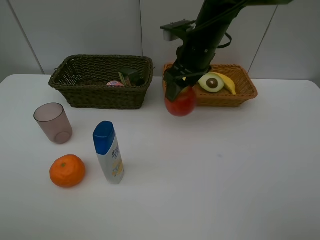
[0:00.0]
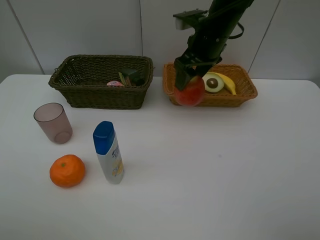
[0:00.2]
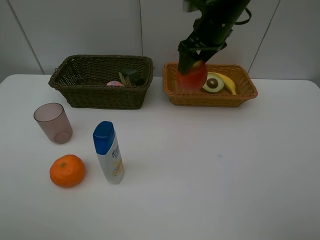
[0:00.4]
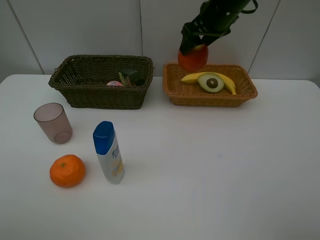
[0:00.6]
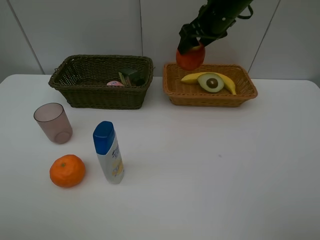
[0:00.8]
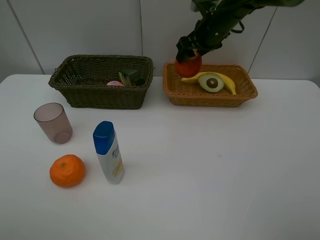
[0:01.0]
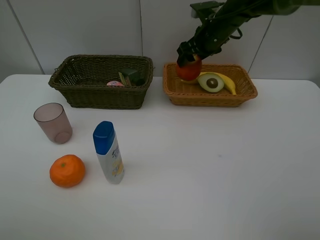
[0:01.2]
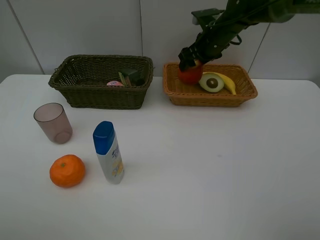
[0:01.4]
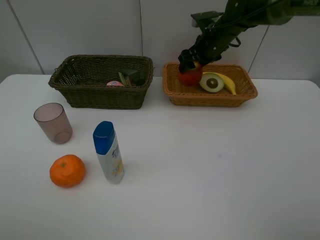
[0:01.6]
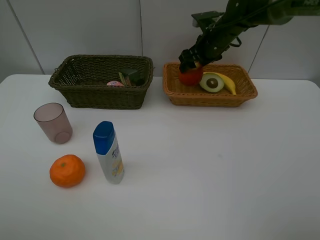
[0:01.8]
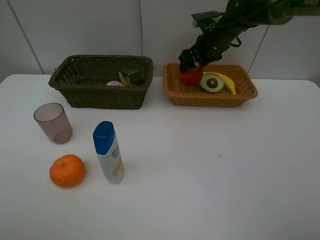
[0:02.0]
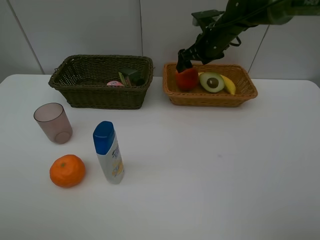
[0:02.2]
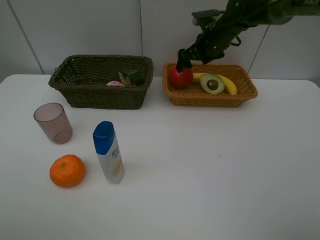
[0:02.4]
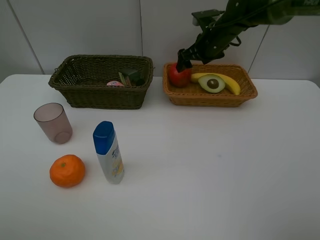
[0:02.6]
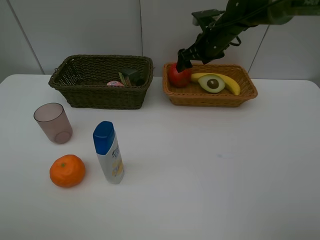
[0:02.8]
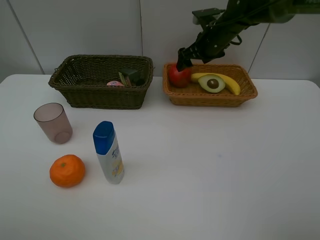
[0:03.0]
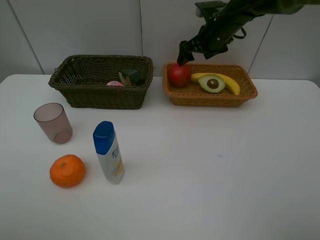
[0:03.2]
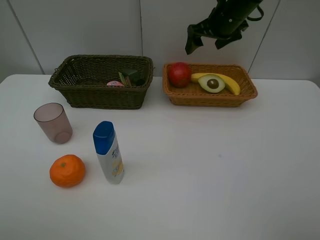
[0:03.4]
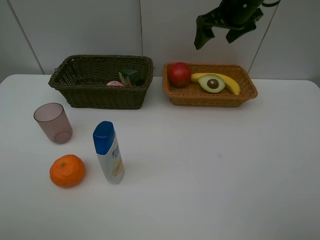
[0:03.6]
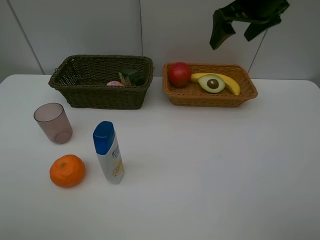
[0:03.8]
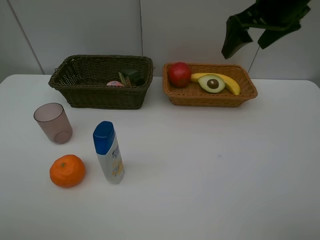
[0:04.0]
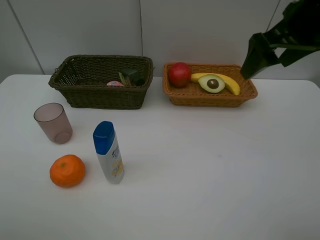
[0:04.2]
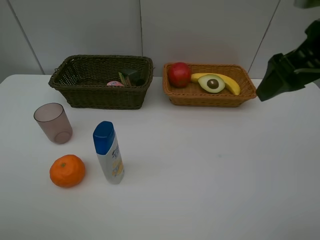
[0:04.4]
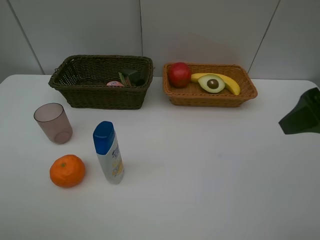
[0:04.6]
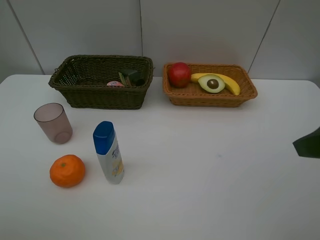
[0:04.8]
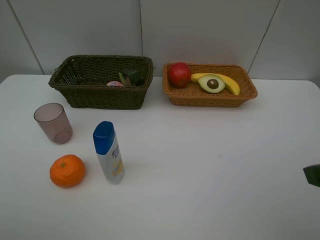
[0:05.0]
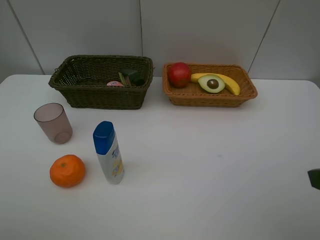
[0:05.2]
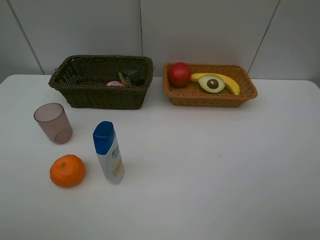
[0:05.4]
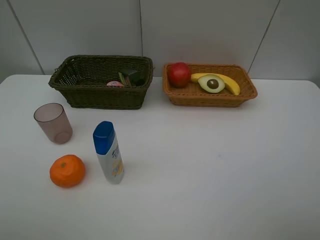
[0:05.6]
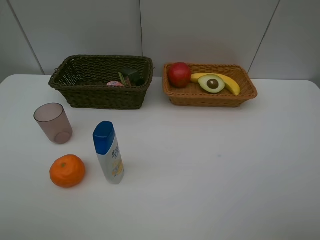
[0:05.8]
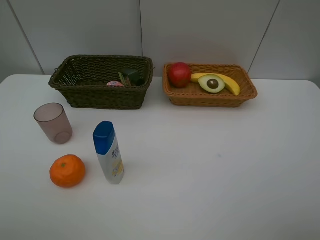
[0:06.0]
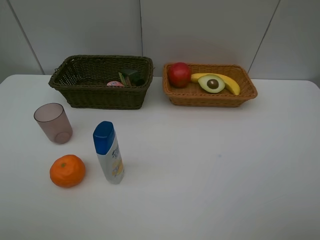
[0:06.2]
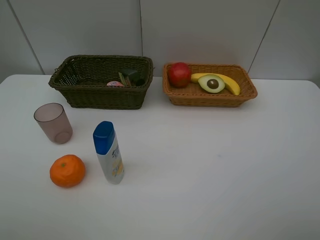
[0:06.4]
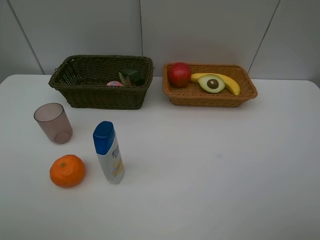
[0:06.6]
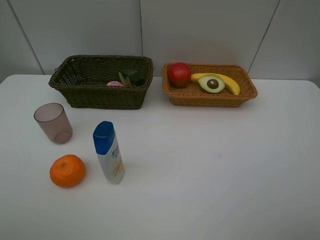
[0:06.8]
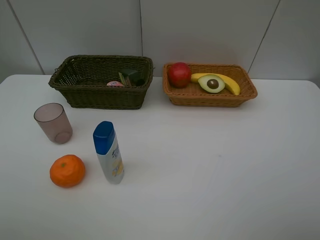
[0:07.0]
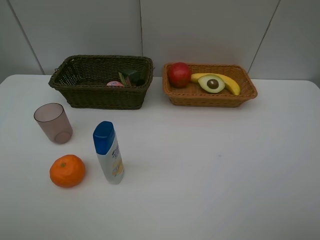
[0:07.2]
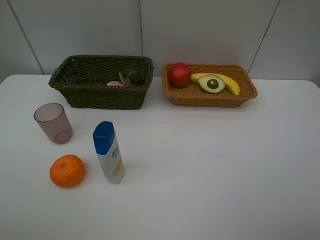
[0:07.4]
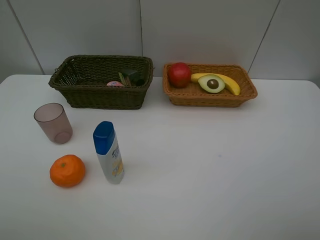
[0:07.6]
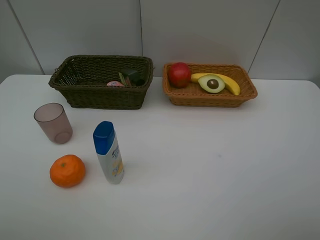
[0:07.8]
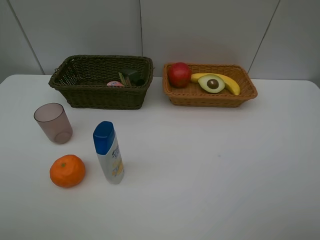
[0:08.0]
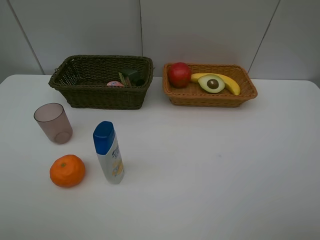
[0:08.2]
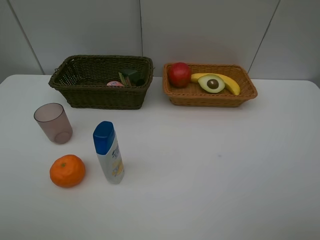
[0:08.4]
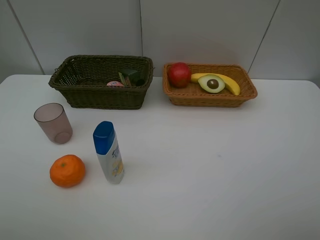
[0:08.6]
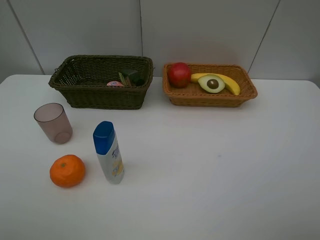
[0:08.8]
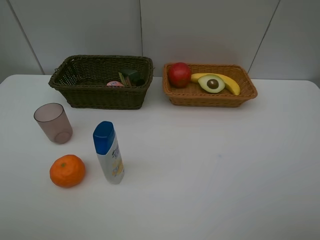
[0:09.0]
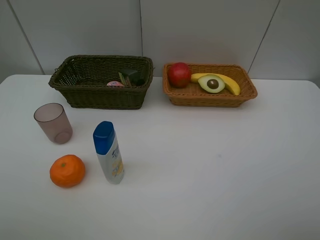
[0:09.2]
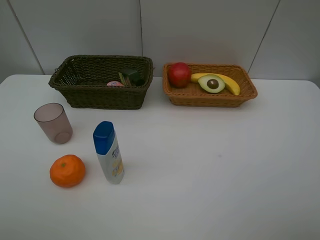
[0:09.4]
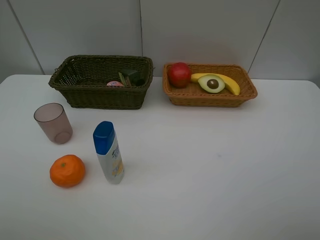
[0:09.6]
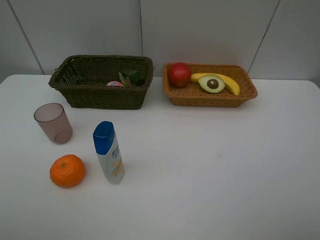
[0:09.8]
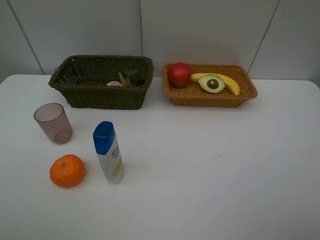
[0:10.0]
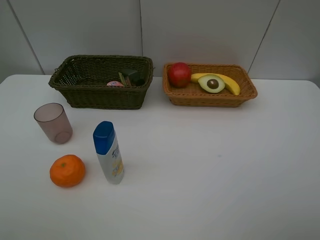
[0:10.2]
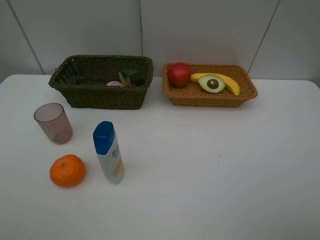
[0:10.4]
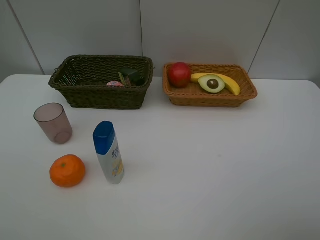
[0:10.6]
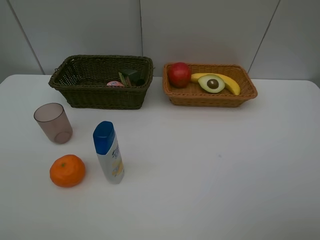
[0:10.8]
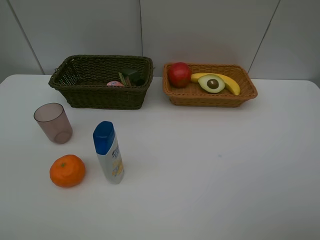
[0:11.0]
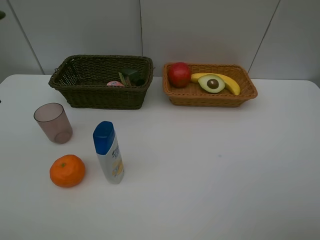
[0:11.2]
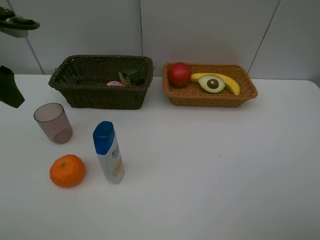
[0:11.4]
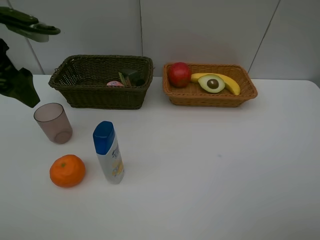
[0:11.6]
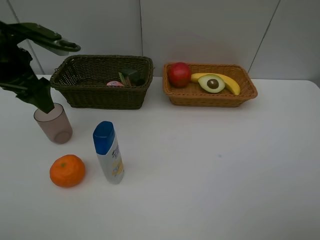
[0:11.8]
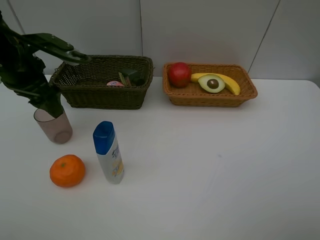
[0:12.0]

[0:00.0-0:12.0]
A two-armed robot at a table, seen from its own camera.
Task of the whole recording: Place multiple objects separately in different baskets.
Step, 0:00.0 to 0:02.8: Place the apple in the light basket with right gripper.
0:00.0 to 0:01.6: The right gripper moves forward and to the right, approximately 10 cm.
0:01.6 to 0:03.0: The right gripper opens up.
0:03.0 to 0:04.4: The right gripper goes approximately 30 cm backward and upward.
0:04.4 to 0:06.0: The right gripper travels backward by about 20 cm.
0:07.6 to 0:09.0: Both grippers stay put.
0:10.4 to 0:12.0: The left gripper is displaced forward and downward by roughly 25 cm.

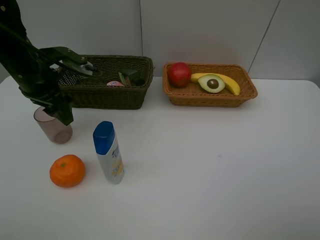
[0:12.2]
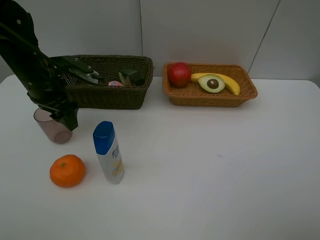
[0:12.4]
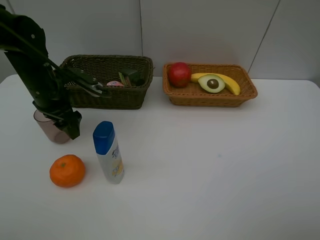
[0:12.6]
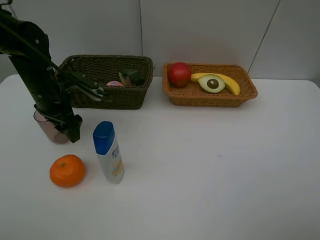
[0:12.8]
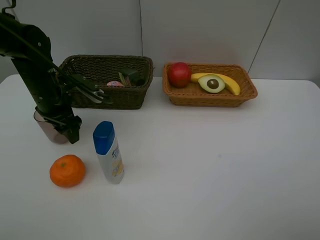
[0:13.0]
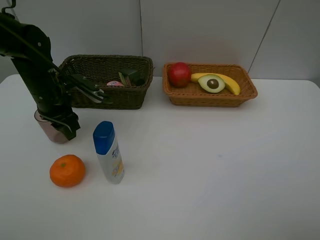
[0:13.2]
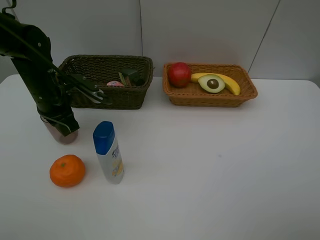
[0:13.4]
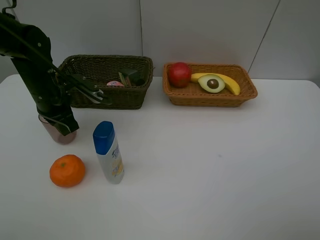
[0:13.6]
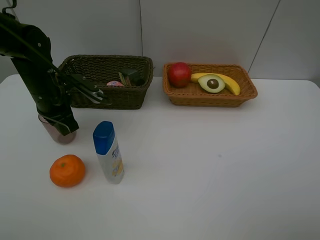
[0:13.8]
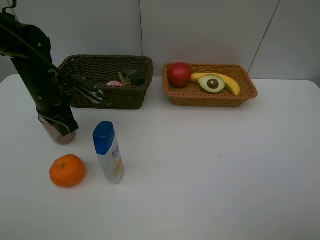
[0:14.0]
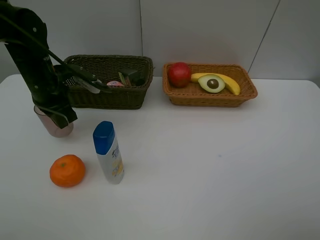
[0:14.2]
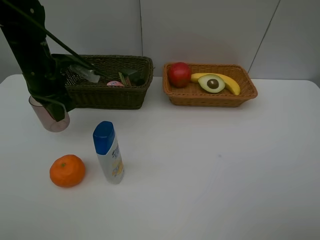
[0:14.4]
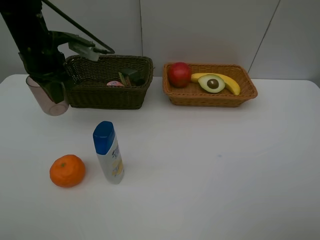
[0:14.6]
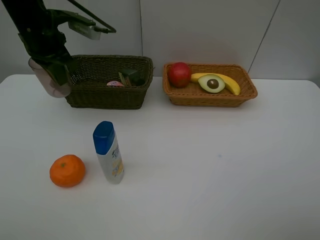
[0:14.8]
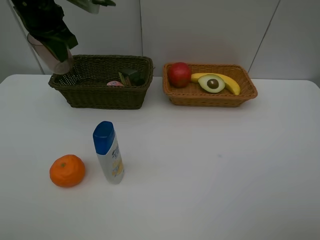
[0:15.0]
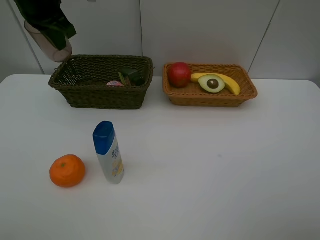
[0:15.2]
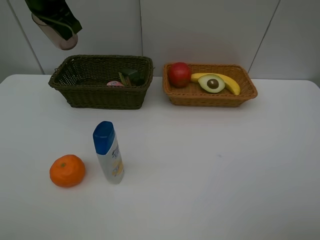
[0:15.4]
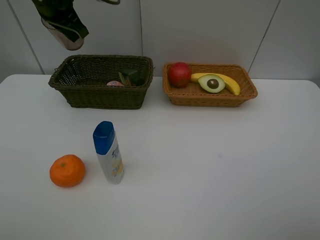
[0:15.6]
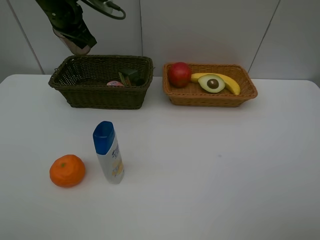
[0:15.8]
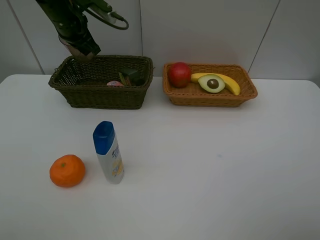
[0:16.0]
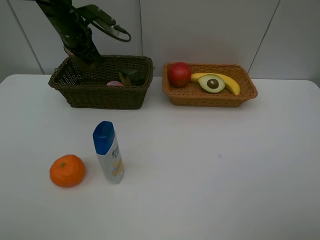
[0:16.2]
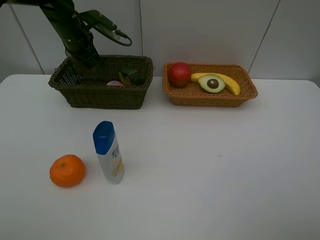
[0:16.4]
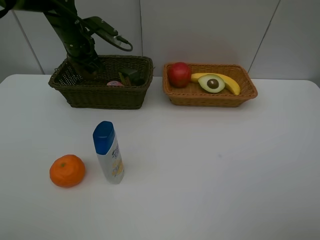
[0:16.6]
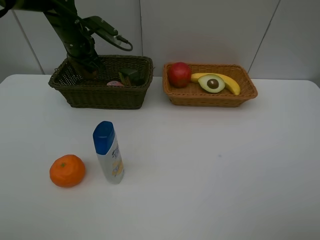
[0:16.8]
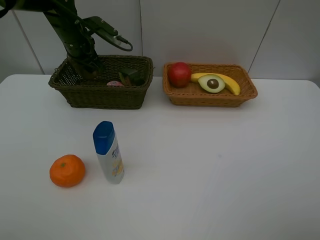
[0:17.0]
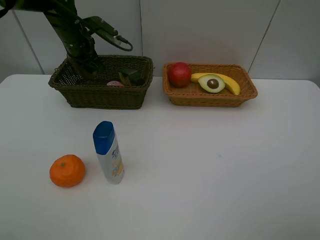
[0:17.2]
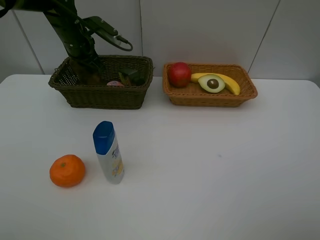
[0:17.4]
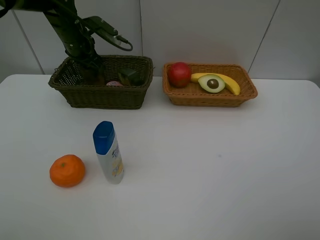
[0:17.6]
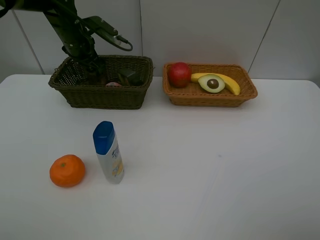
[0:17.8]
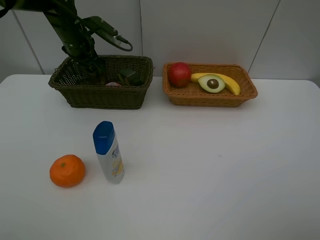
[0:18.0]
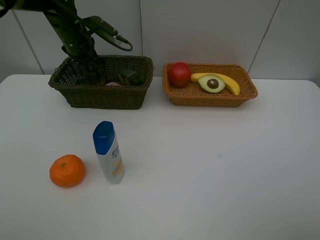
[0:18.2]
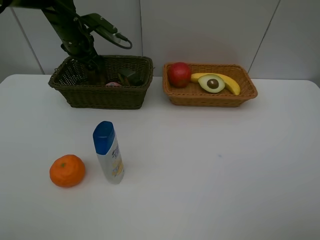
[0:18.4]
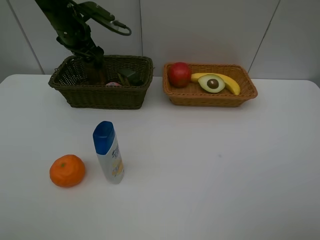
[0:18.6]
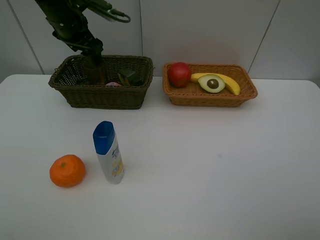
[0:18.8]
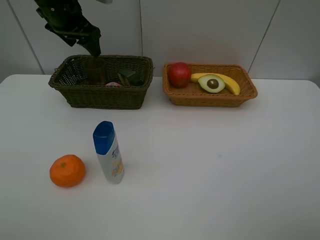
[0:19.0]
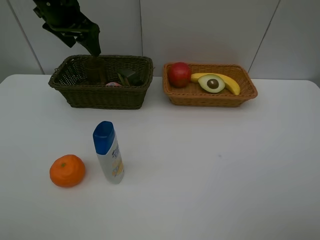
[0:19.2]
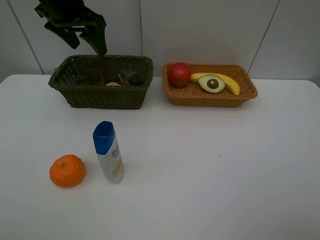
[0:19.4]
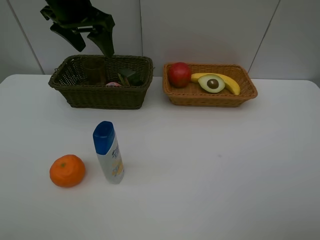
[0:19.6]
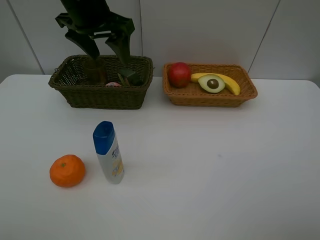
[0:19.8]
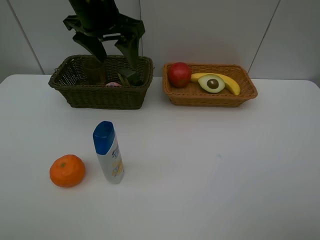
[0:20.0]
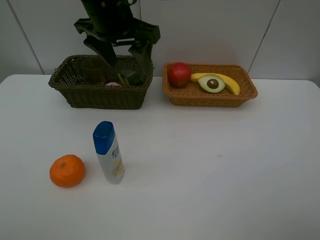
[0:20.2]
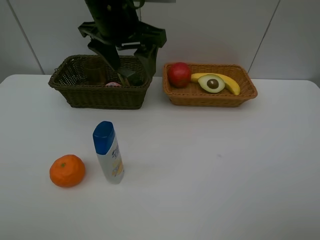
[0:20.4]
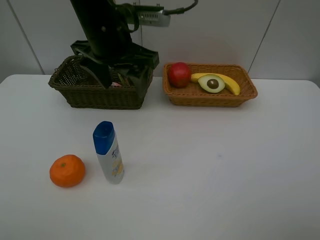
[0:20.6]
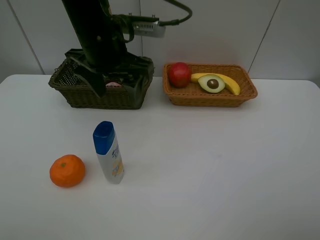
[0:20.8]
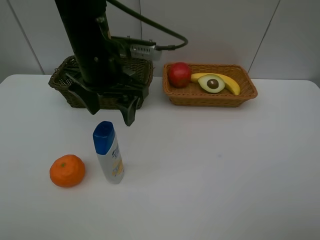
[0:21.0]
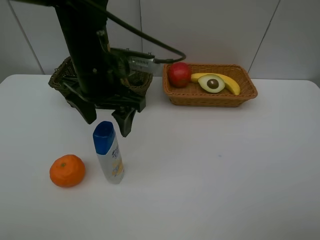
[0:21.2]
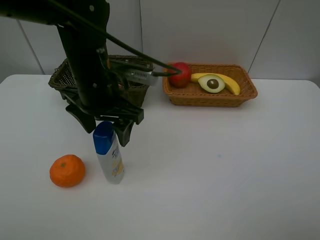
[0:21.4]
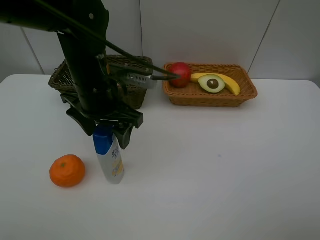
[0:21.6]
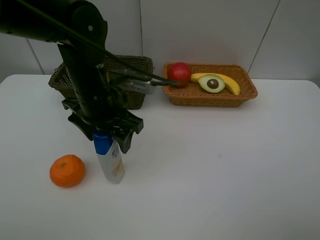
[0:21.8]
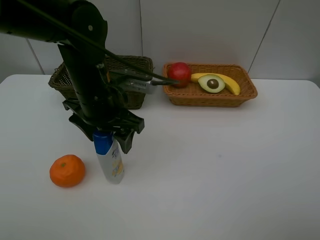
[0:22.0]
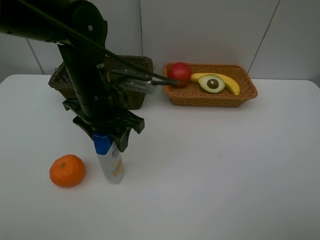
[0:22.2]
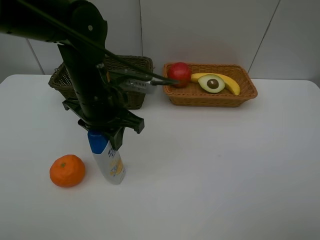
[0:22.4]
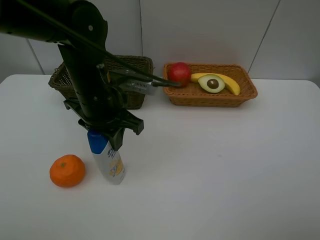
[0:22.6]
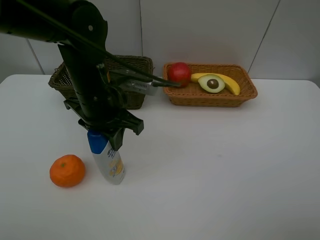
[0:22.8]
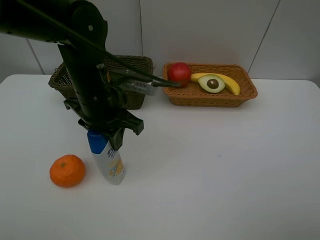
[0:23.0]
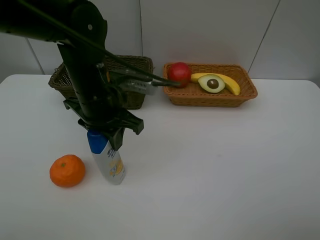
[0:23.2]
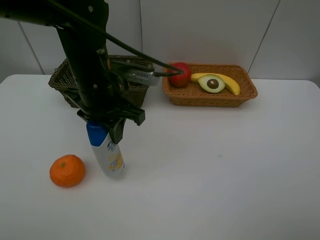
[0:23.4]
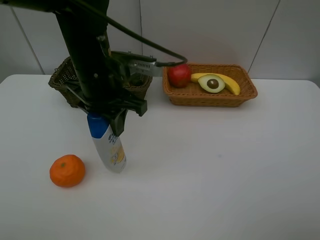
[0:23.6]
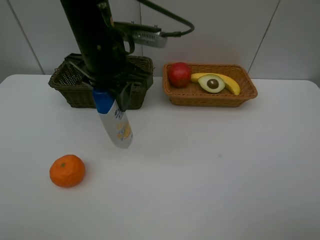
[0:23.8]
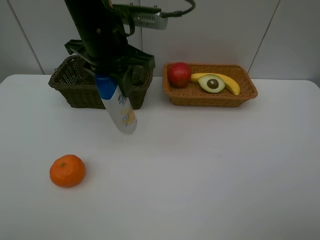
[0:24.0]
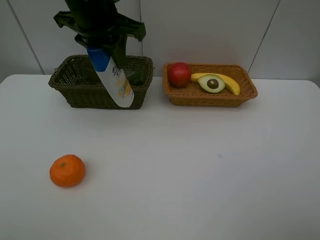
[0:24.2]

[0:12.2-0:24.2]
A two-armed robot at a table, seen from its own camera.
Task of the whole recording: Place multiple objects separately in different baskets.
Step, 0:12.2 to 0:14.2: Pick up the red cup with left gripper.
Step, 0:14.4 to 0:18.6: Place the red cup in the dark basket with left gripper.
Step, 0:18.8 to 0:23.4: Pick up the shampoo with left gripper.
0:12.2 to 0:13.8: The left gripper is displaced downward by about 5 cm, and closes.
0:13.8 to 0:15.2: The left gripper heads upward, covering approximately 15 cm.
0:15.2 to 0:16.6: The left gripper travels downward and forward by approximately 15 cm.
0:18.2 to 0:19.8: The left gripper goes roughly 15 cm upward, backward and to the right.
0:19.8 to 0:21.2: The left gripper goes about 10 cm backward and downward.
0:21.2 to 0:22.6: The left gripper closes.
0:22.6 to 0:24.2: The left gripper is displaced upward and forward by about 15 cm.
